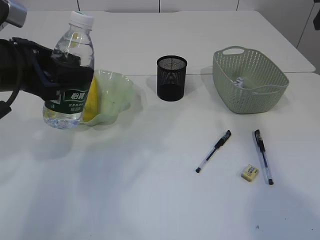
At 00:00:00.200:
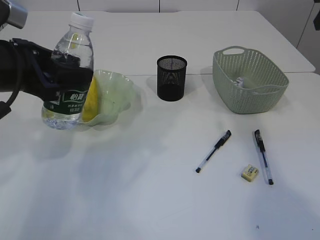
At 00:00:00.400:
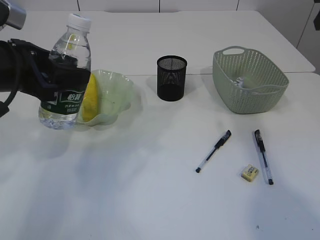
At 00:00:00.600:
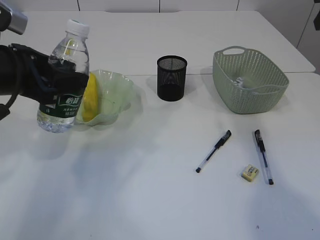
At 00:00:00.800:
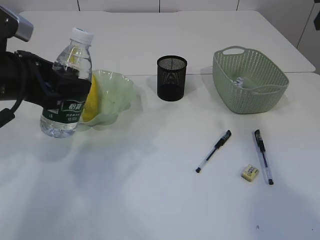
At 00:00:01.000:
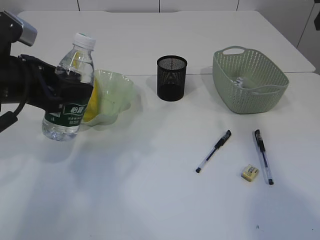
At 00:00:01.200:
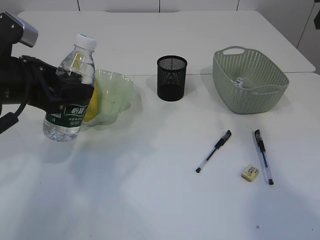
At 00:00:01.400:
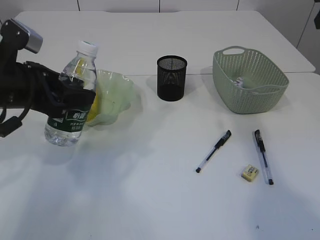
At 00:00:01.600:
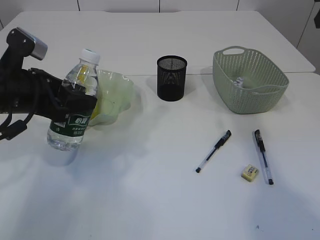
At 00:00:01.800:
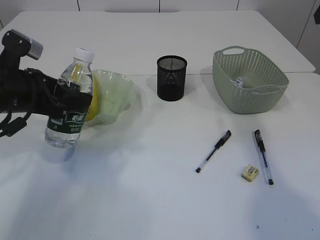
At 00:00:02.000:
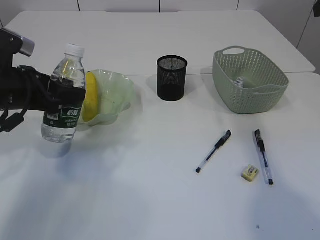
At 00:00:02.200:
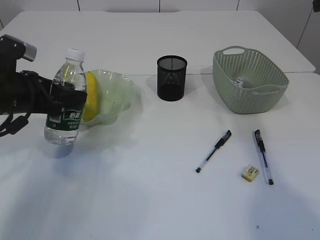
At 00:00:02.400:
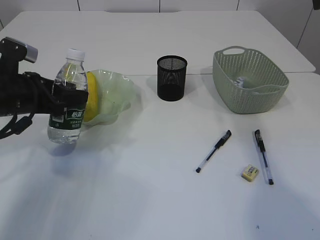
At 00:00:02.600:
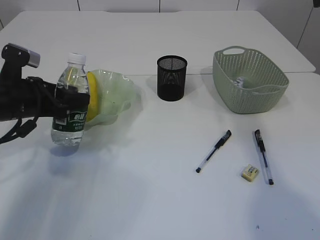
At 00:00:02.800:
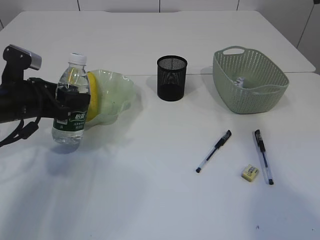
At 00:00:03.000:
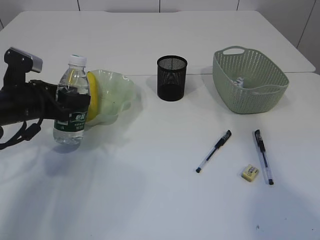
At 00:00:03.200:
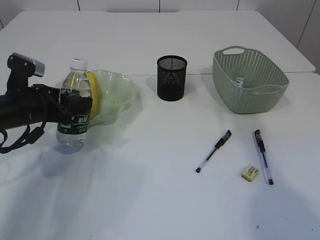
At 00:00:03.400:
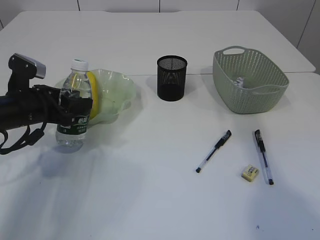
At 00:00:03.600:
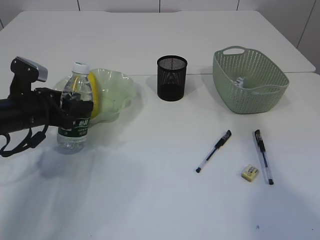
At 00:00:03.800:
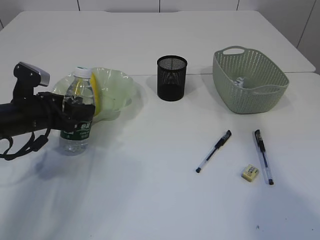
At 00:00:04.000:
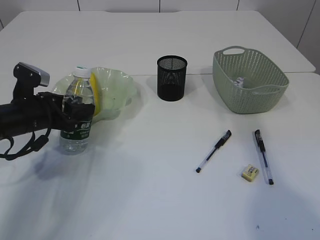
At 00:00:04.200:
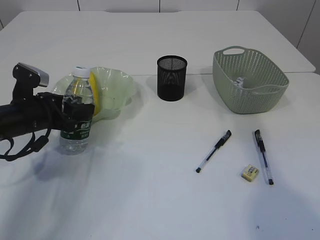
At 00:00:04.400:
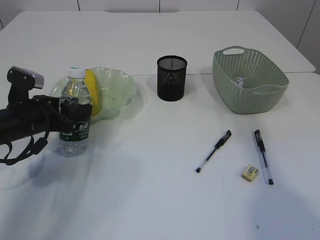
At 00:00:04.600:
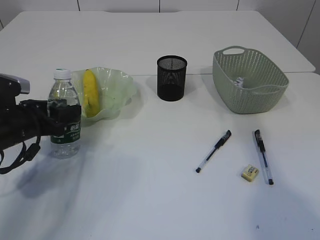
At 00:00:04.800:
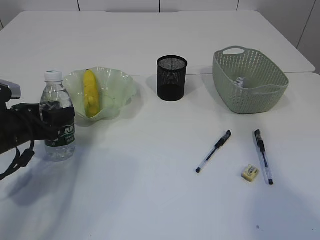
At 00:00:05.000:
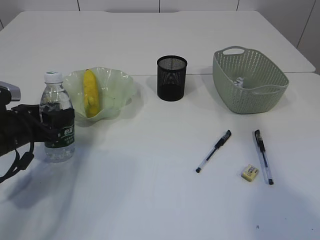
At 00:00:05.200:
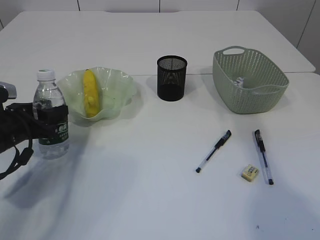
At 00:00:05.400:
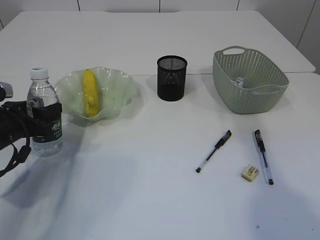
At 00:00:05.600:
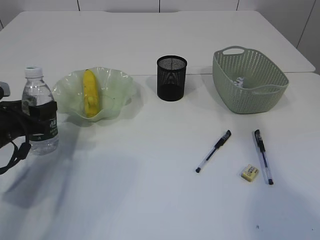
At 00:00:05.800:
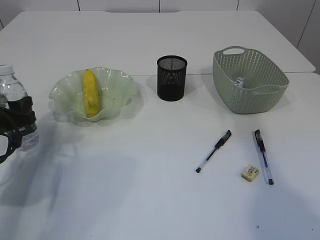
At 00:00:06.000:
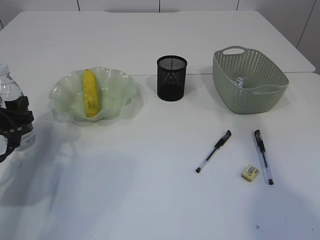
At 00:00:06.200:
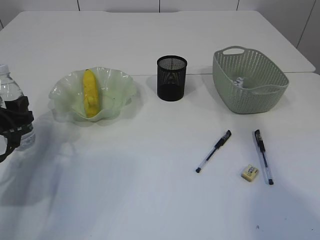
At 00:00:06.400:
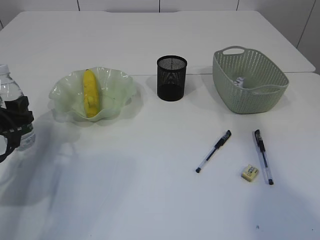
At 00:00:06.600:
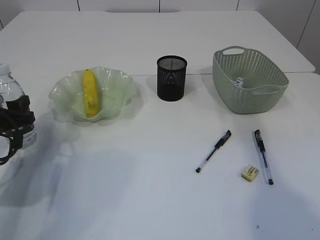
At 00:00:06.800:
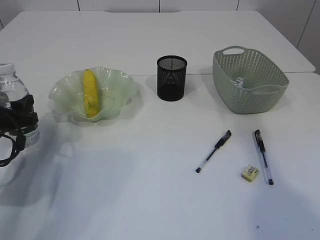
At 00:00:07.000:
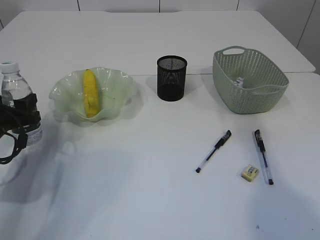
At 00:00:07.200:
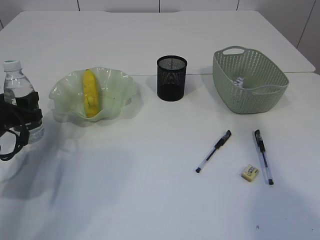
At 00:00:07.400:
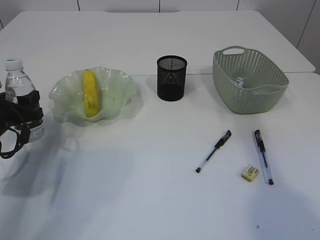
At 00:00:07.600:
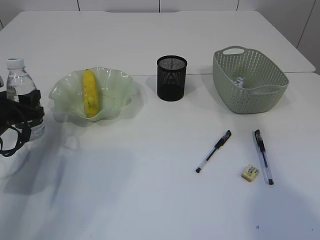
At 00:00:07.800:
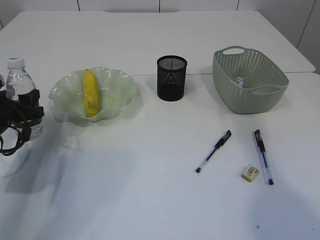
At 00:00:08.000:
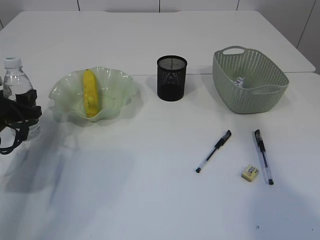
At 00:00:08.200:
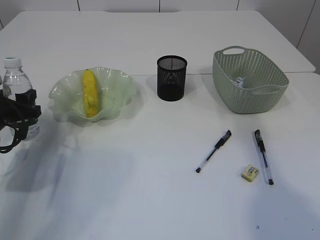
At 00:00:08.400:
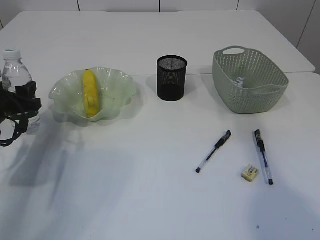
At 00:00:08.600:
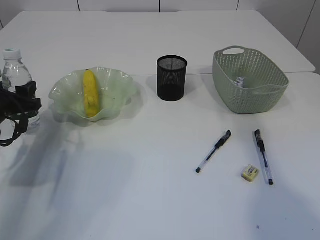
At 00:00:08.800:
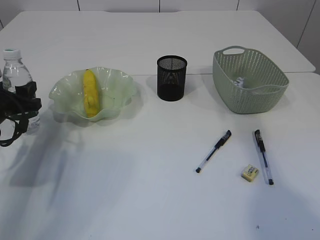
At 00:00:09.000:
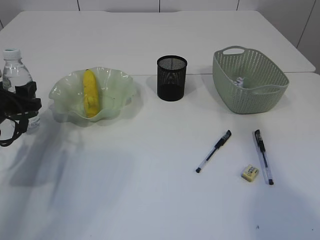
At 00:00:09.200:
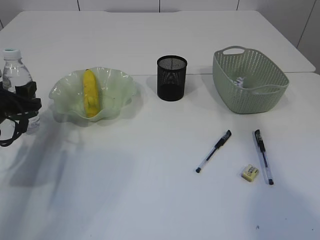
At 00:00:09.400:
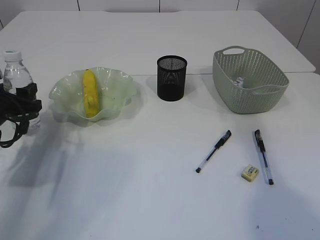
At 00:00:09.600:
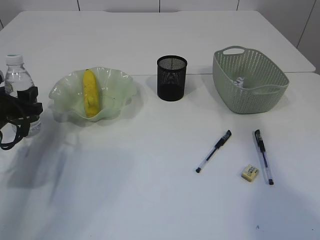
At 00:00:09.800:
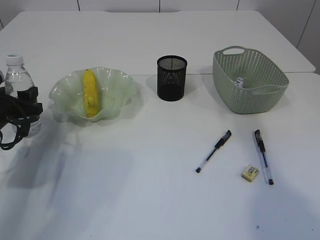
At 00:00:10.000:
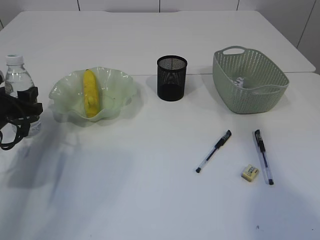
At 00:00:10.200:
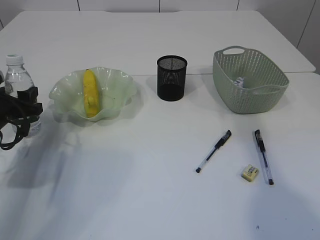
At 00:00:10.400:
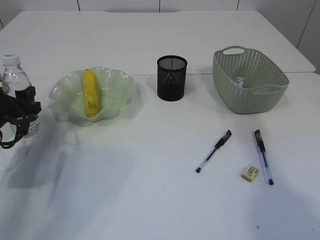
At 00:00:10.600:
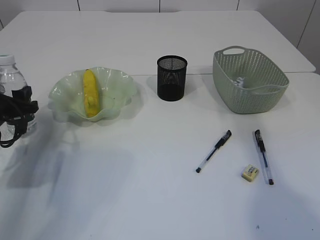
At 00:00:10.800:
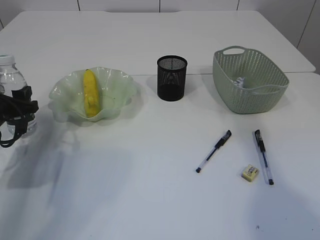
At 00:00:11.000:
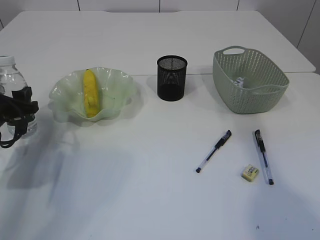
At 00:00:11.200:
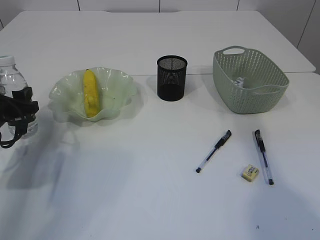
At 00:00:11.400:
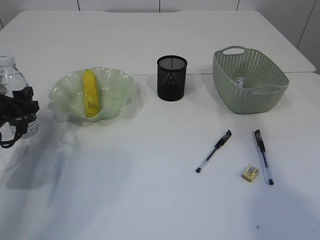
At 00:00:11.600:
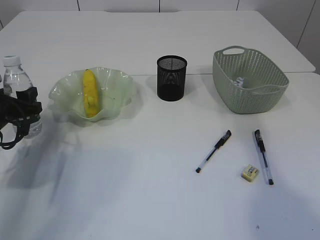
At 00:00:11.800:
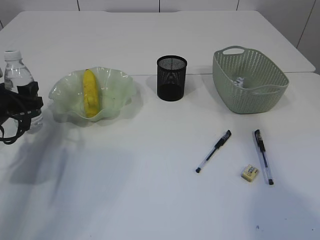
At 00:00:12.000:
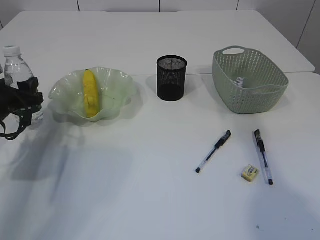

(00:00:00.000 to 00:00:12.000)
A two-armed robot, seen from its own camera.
00:00:00.000 - 00:00:01.600: The left gripper is displaced downward by roughly 5 cm.
00:00:01.600 - 00:00:03.000: The left gripper goes some 5 cm downward.
00:00:03.000 - 00:00:04.400: There are only small adjustments of the grippers.
00:00:04.400 - 00:00:06.000: The left gripper is displaced to the left by roughly 5 cm.
00:00:06.000 - 00:00:09.000: The grippers move only a little.
00:00:09.000 - 00:00:10.400: The two grippers keep their place.
00:00:10.400 - 00:00:12.000: There are only small adjustments of the grippers.

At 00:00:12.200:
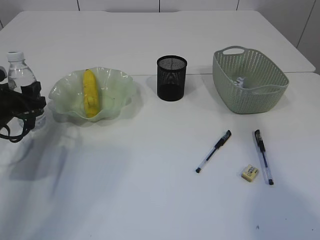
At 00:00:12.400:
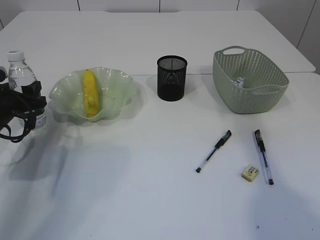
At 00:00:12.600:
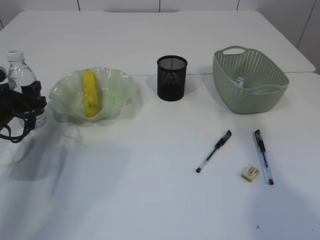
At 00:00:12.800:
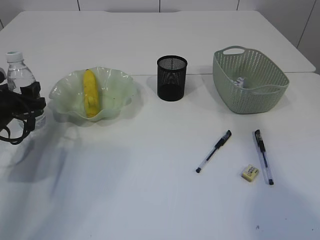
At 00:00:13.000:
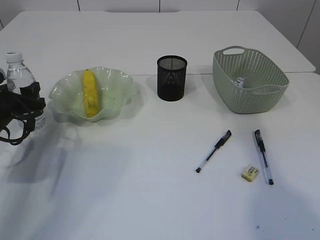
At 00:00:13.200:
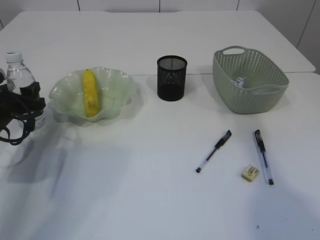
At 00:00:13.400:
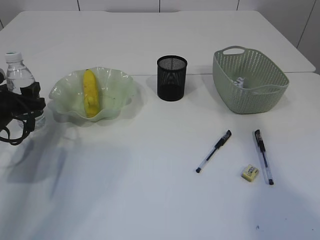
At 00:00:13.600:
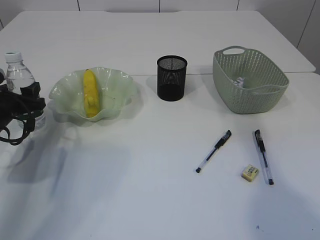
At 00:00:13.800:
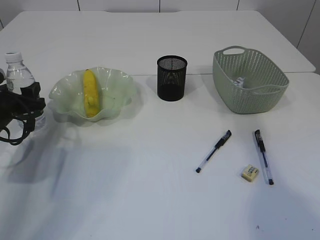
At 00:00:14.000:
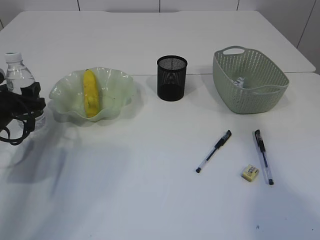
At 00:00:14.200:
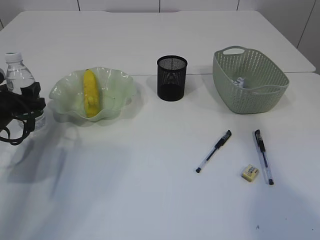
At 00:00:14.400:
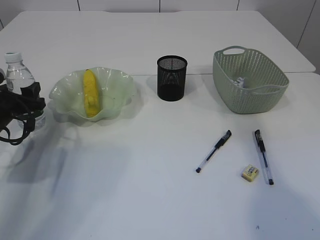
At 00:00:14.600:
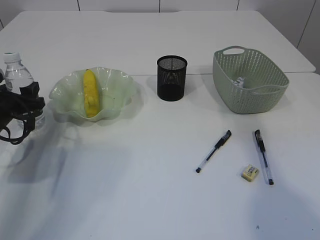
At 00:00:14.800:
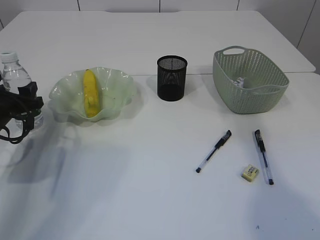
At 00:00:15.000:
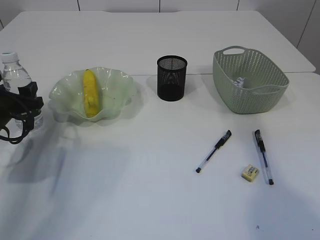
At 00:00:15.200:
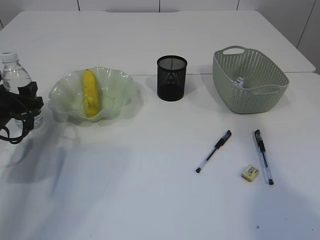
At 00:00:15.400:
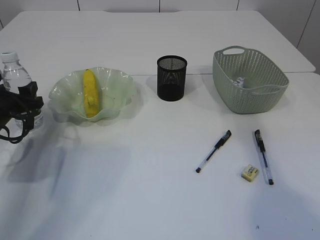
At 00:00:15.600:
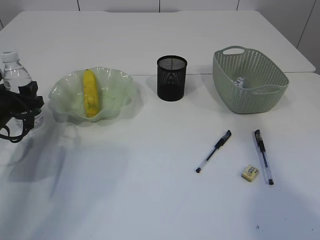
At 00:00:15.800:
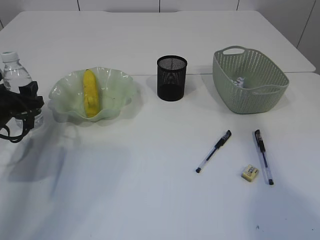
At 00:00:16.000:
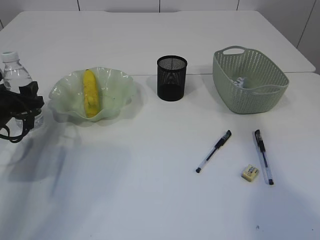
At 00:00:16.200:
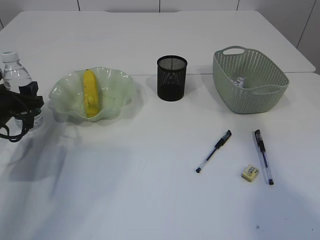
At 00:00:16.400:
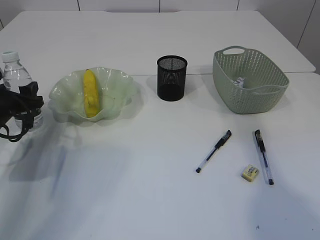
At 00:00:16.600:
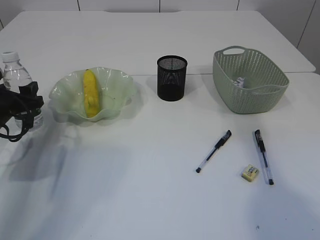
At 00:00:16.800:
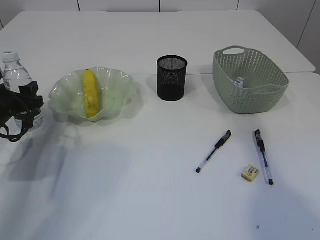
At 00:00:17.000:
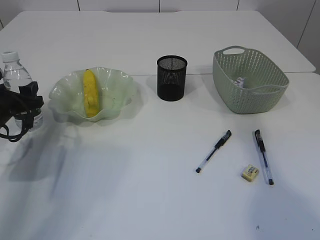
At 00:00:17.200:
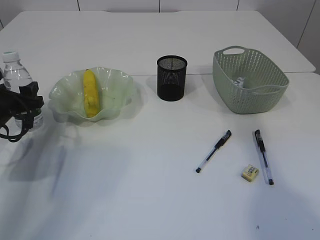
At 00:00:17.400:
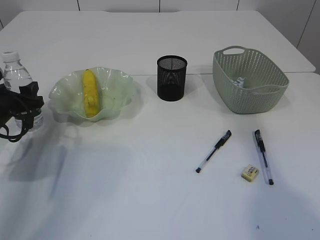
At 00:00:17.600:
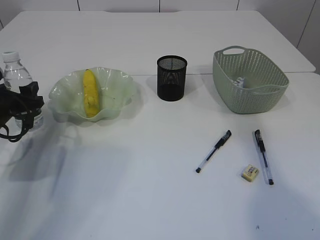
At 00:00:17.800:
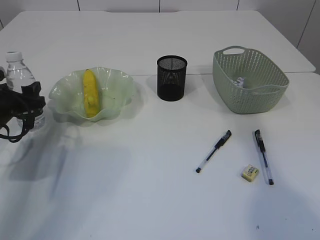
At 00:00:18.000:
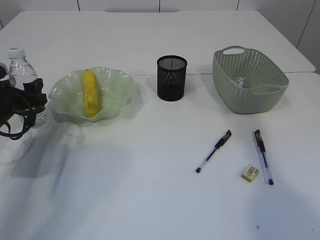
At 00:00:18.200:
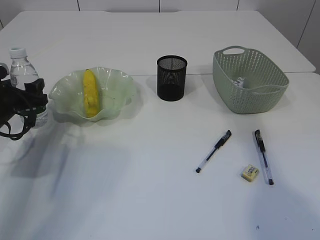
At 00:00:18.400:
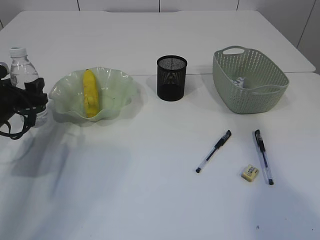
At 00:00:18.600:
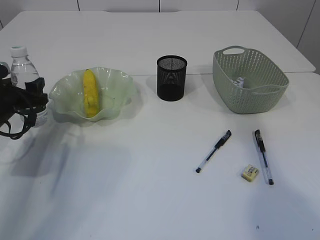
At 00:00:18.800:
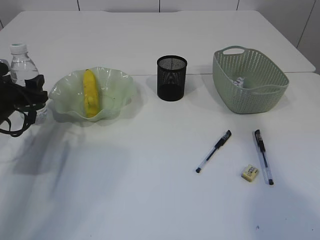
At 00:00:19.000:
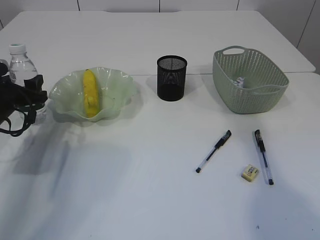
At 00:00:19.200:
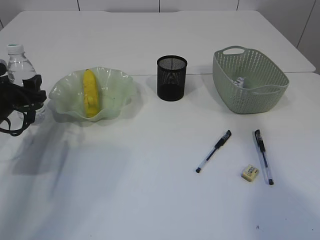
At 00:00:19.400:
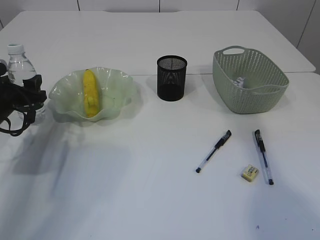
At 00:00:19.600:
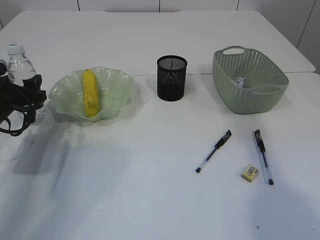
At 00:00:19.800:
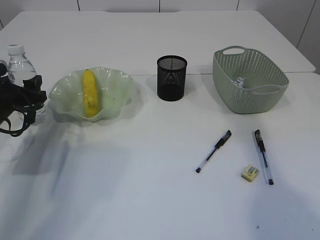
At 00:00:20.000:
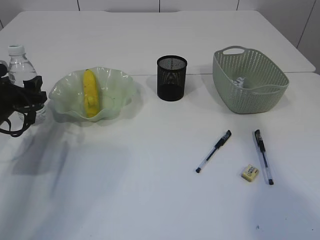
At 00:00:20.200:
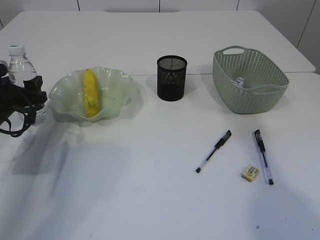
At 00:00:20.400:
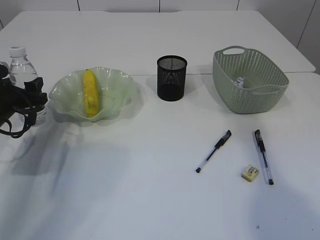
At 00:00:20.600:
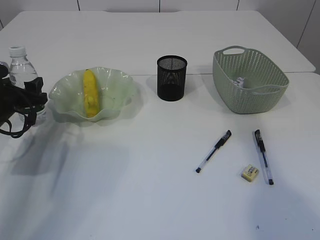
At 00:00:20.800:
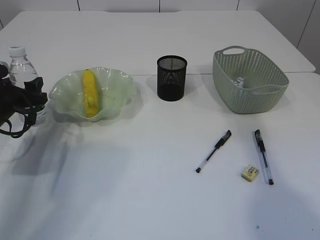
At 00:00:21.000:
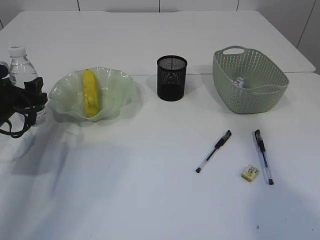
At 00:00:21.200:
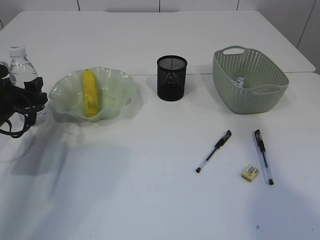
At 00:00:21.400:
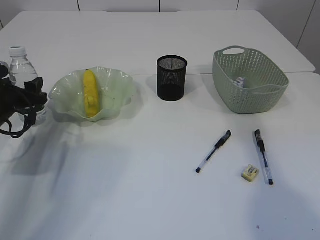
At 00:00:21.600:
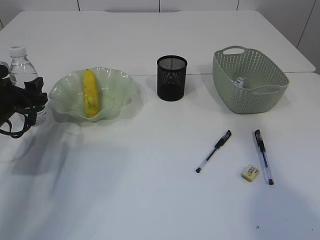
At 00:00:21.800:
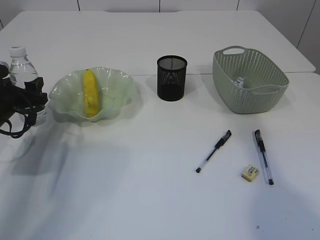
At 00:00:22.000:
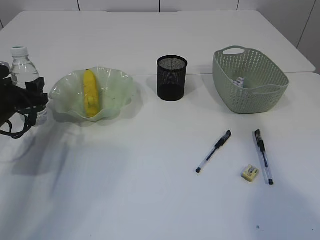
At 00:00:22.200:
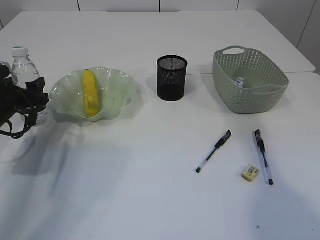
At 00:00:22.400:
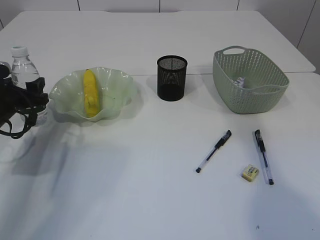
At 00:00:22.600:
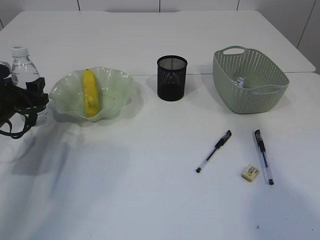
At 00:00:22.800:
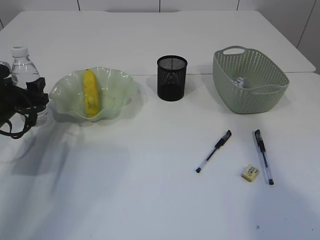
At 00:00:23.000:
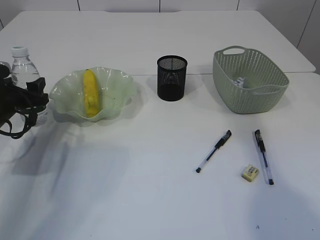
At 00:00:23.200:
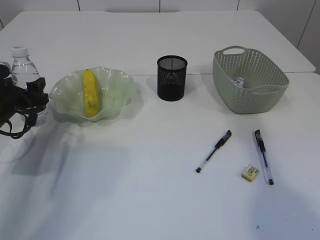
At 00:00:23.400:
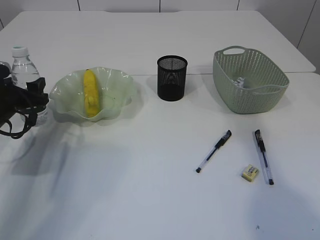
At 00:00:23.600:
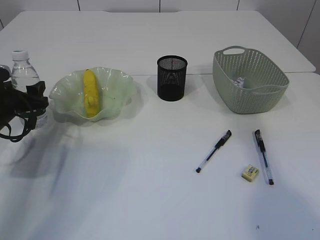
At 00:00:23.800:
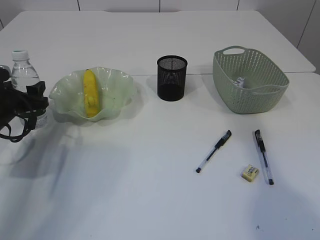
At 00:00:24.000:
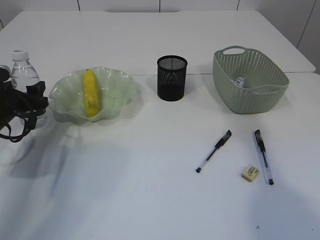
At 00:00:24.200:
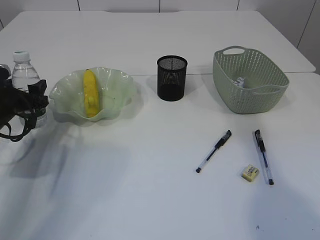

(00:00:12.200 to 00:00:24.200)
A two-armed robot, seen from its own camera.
00:00:12.200 - 00:00:16.600: The two grippers keep their place.
00:00:16.600 - 00:00:18.200: Both grippers stay about where they are.
00:00:18.200 - 00:00:24.200: Neither gripper changes place.
